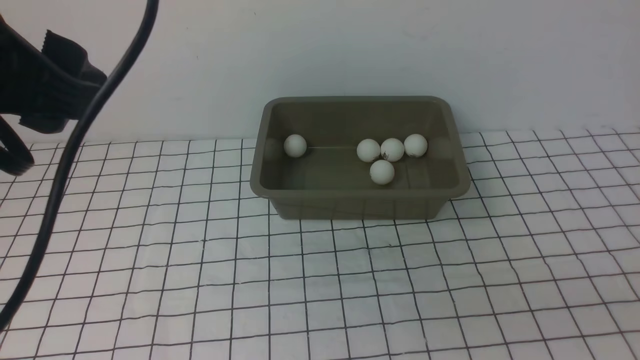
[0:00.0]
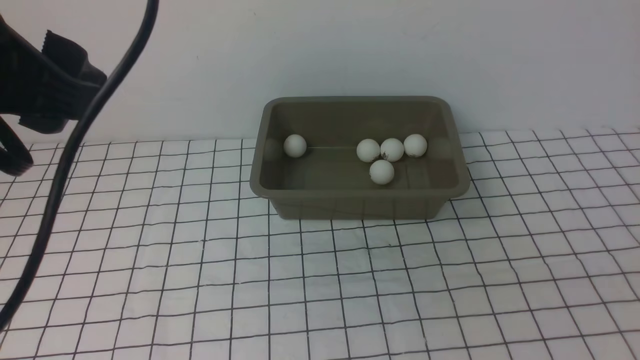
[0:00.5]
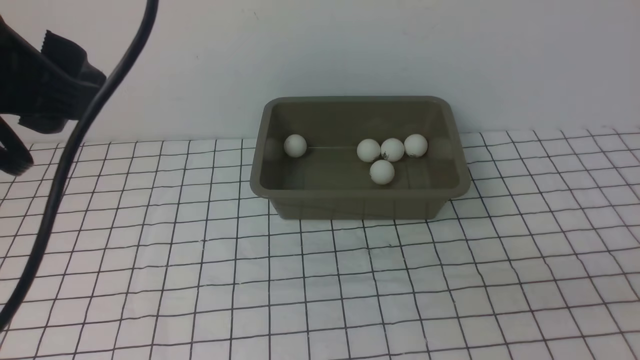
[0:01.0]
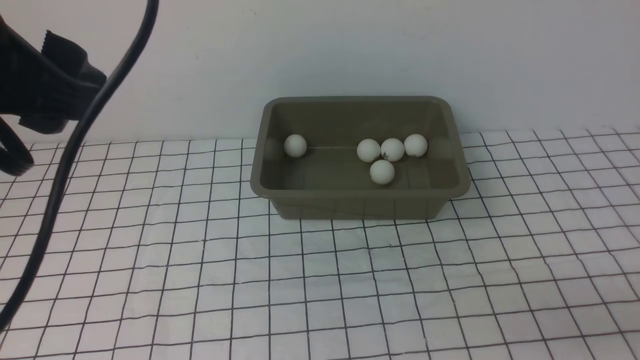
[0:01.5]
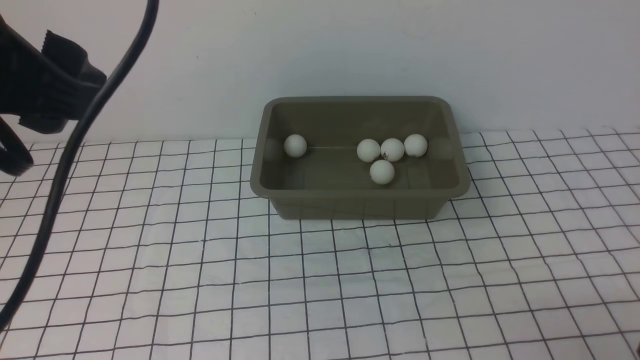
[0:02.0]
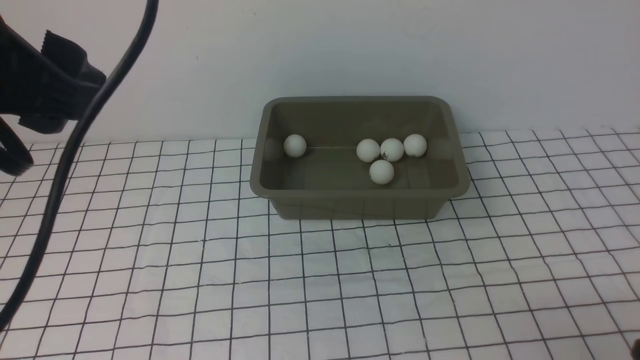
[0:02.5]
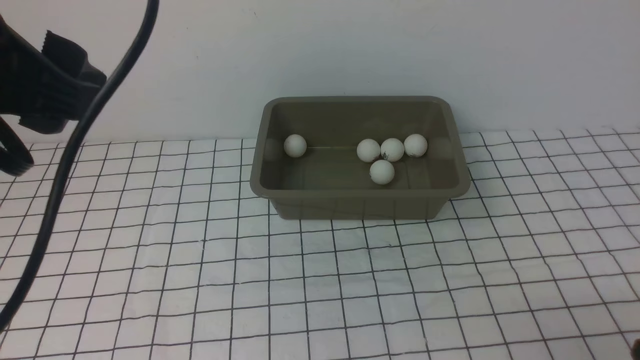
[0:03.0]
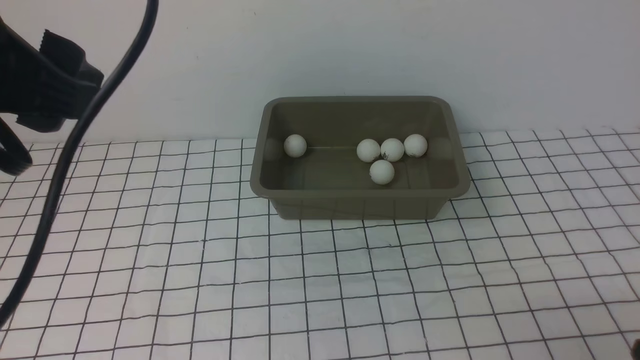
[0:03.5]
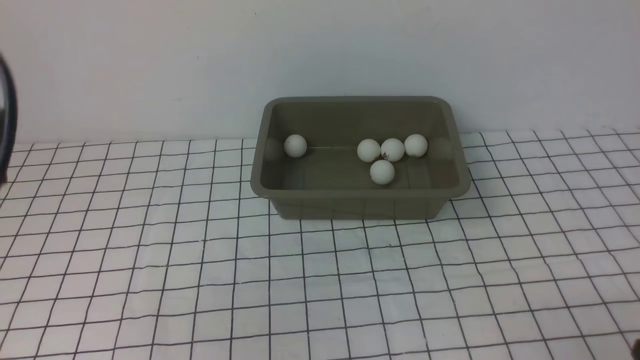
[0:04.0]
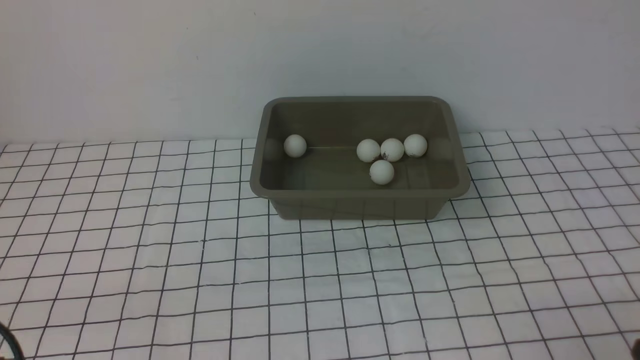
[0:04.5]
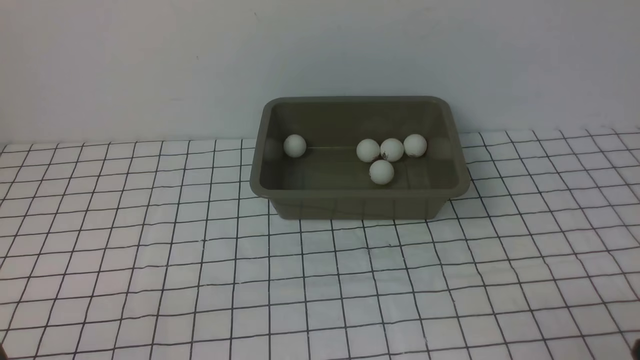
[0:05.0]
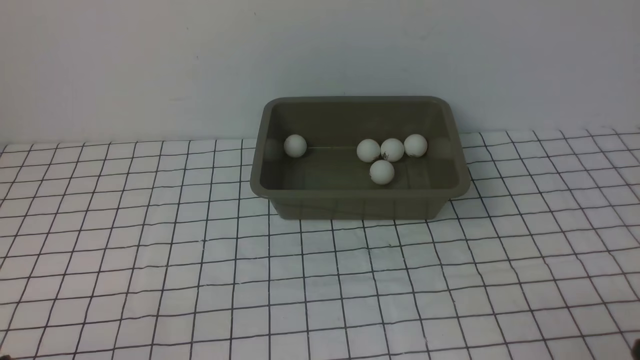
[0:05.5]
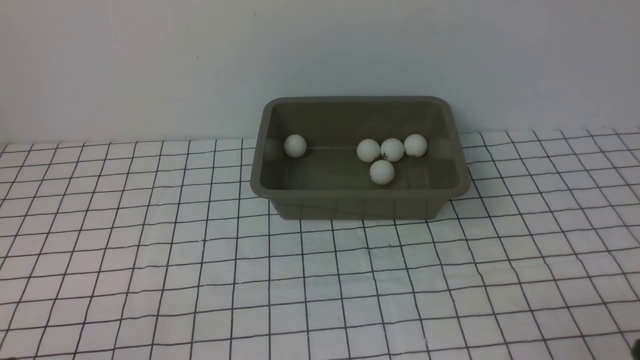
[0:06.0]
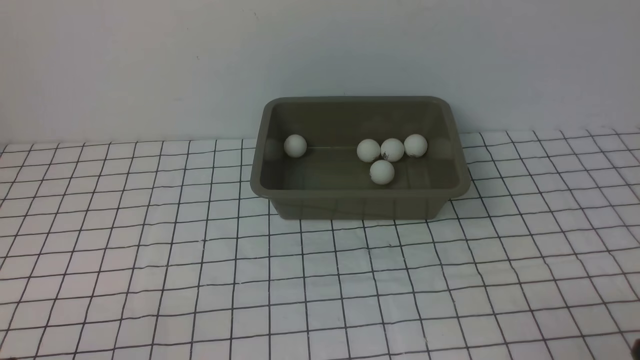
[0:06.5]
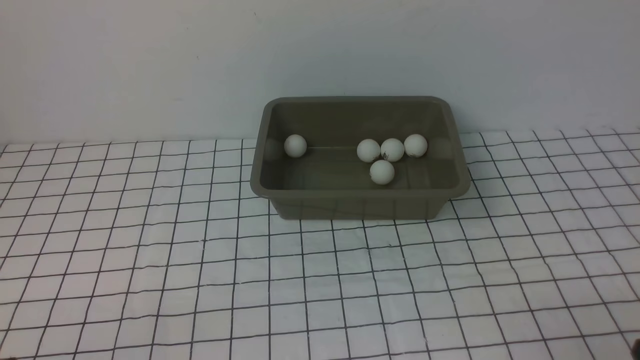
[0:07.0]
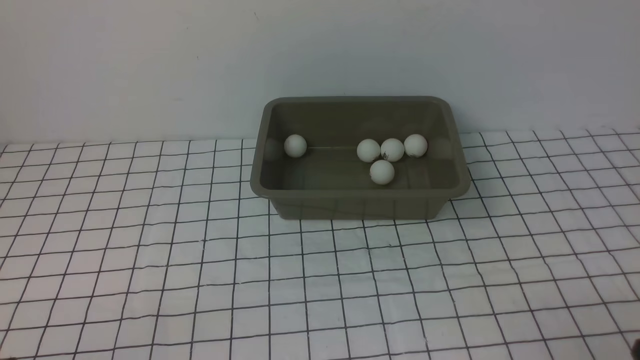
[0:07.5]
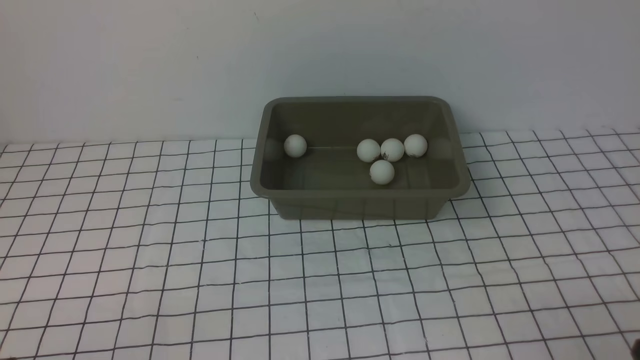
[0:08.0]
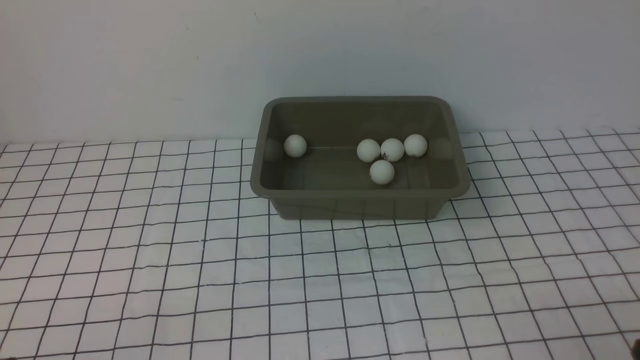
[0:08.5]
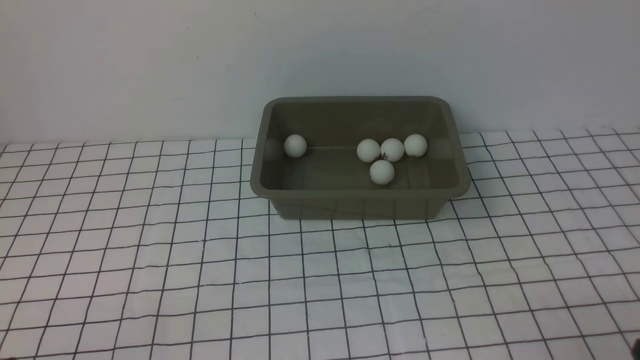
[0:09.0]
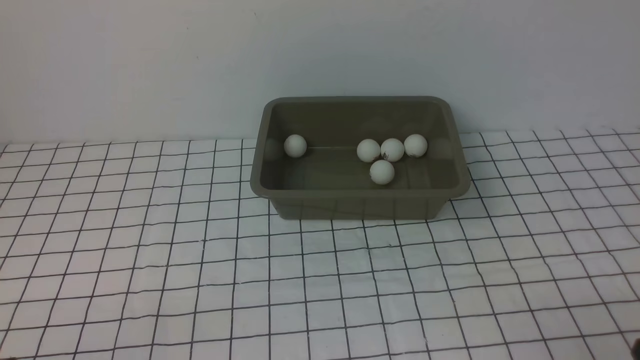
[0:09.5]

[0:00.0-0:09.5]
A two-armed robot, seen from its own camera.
0:02.0 to 0:04.0: The left gripper moves to the left and downward, about 10 cm.
0:04.0 to 0:05.5: The left gripper goes some 25 cm downward and backward.
0:05.5 to 0:09.5: Both grippers stay about where they are.

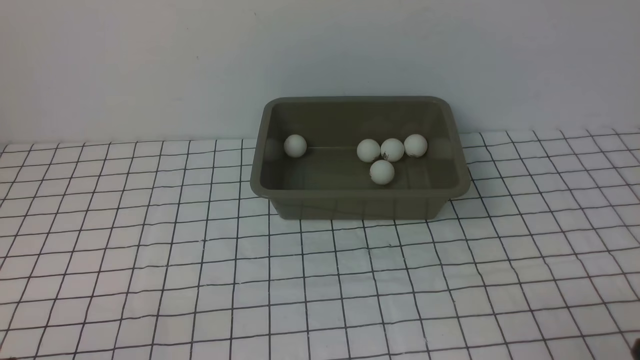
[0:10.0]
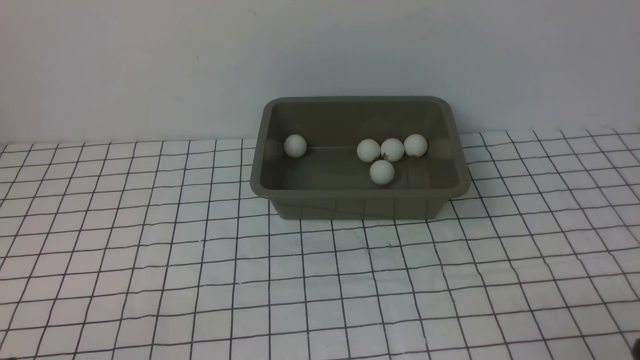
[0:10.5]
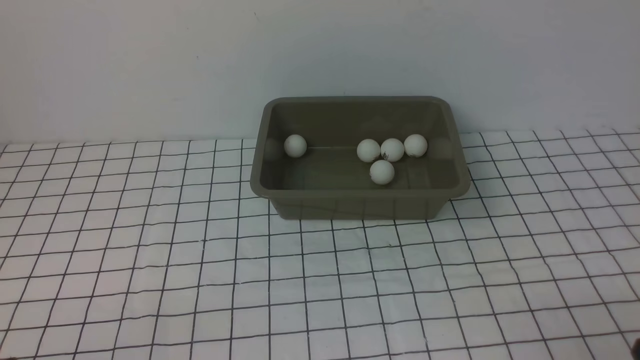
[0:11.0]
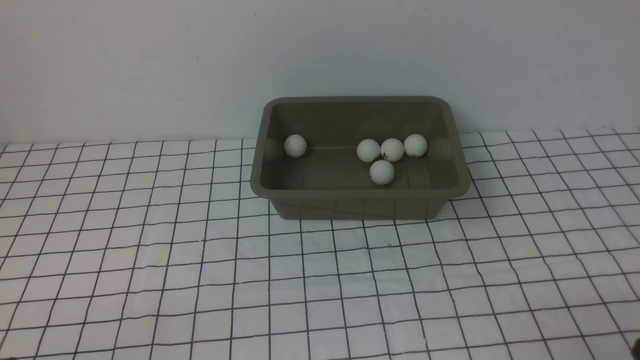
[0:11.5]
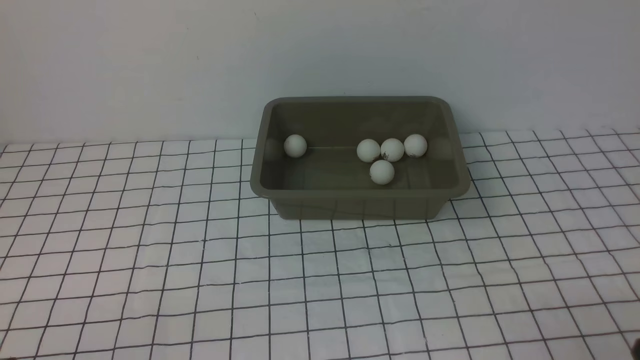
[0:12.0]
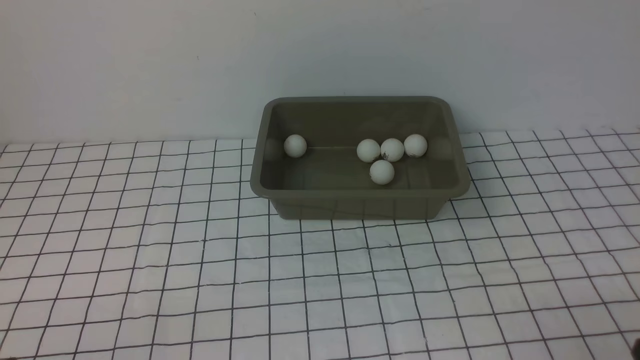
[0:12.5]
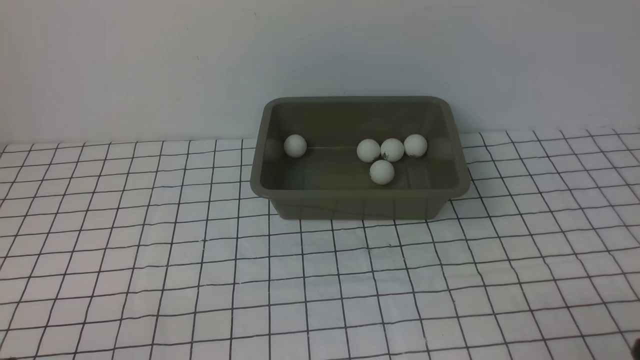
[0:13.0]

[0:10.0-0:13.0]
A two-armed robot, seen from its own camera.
0:10.0 to 0:13.0: Both grippers stay put.
